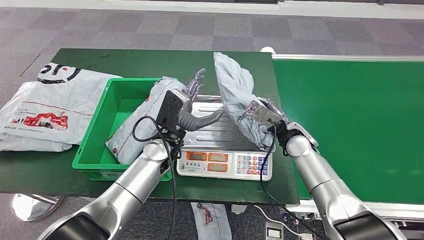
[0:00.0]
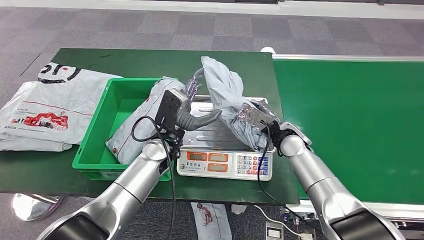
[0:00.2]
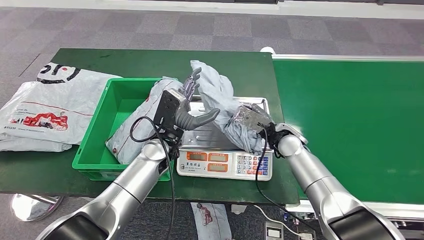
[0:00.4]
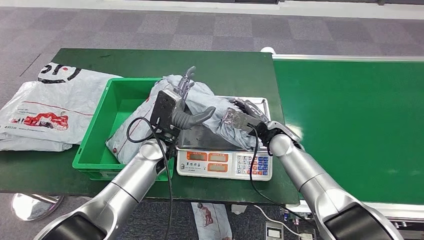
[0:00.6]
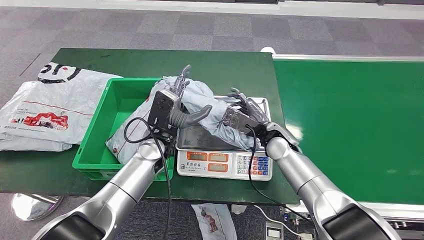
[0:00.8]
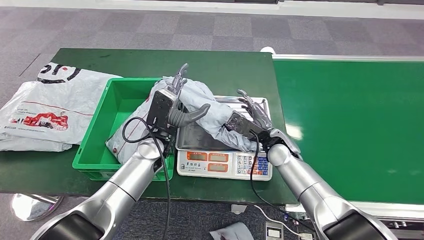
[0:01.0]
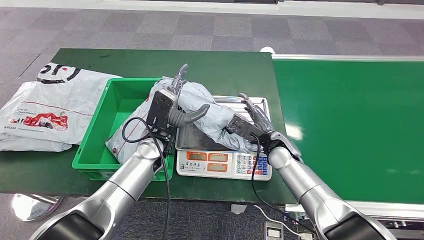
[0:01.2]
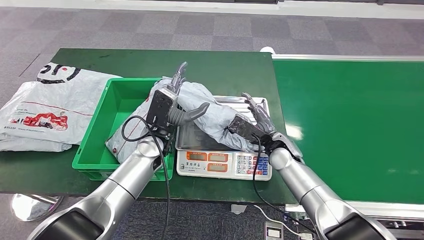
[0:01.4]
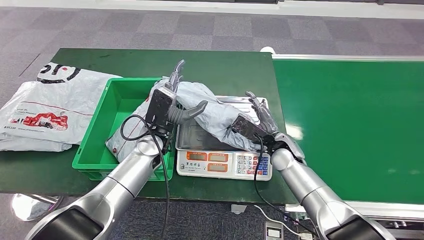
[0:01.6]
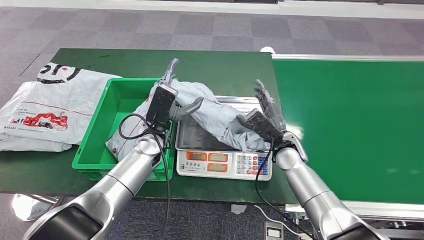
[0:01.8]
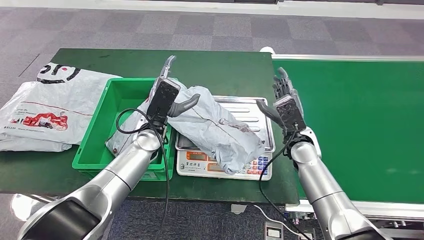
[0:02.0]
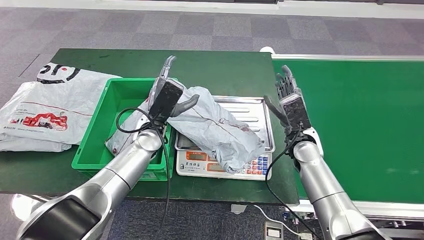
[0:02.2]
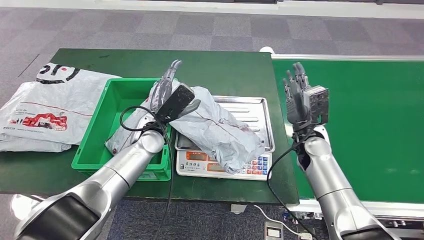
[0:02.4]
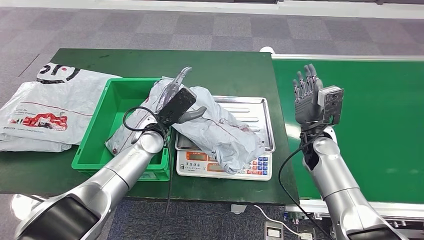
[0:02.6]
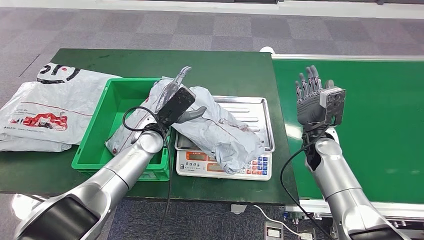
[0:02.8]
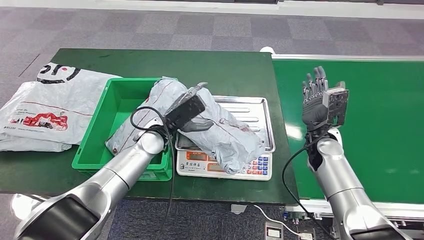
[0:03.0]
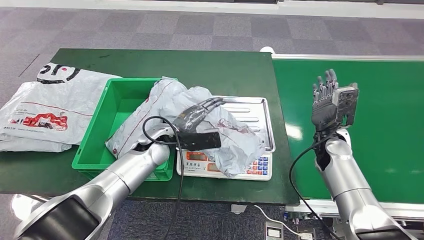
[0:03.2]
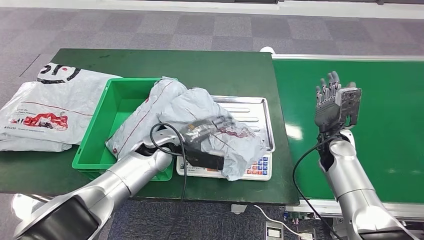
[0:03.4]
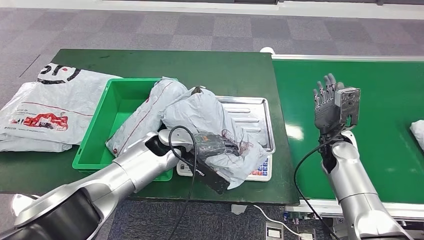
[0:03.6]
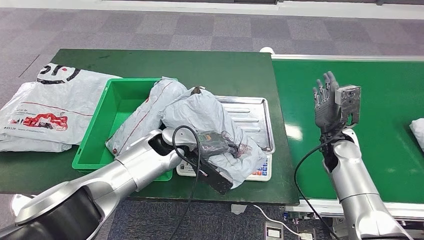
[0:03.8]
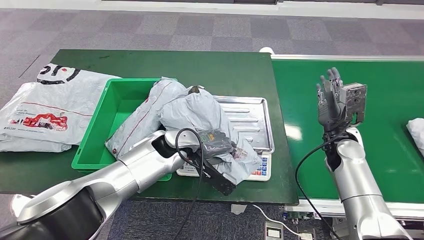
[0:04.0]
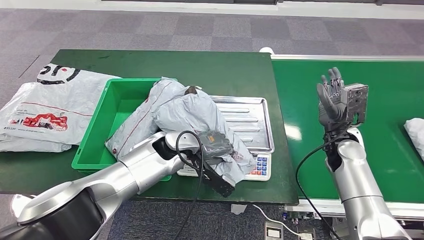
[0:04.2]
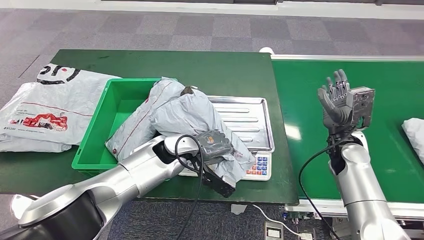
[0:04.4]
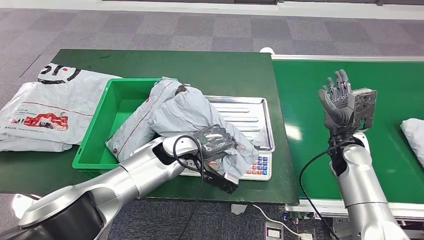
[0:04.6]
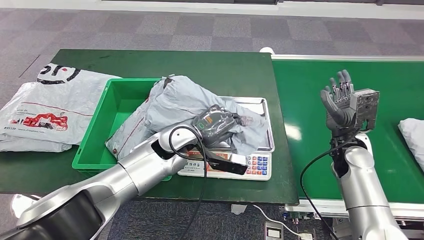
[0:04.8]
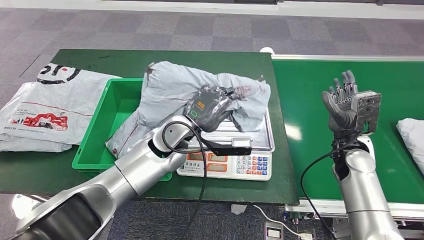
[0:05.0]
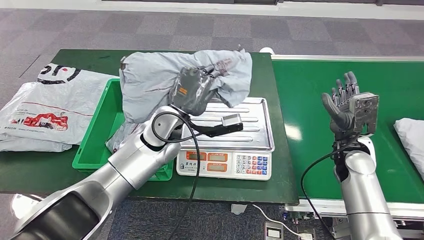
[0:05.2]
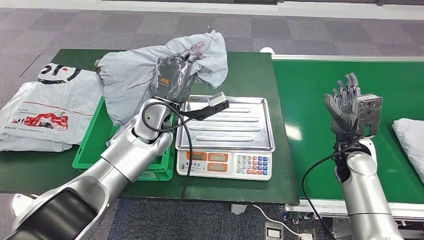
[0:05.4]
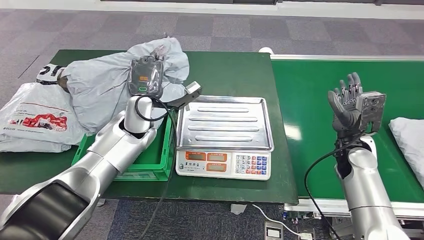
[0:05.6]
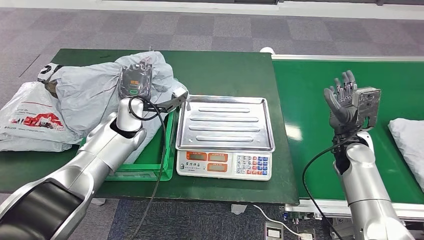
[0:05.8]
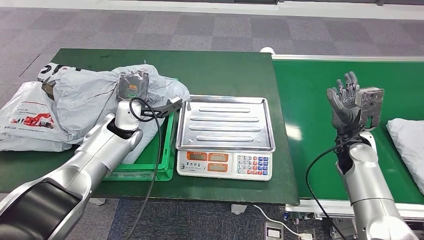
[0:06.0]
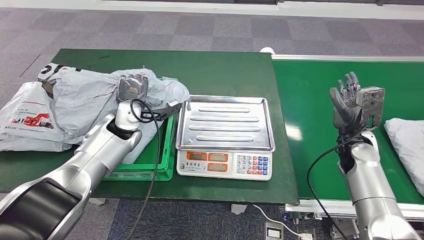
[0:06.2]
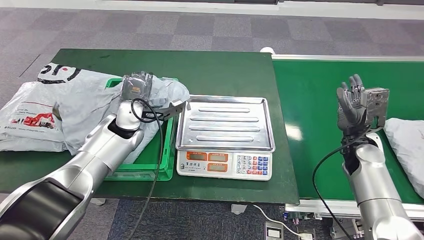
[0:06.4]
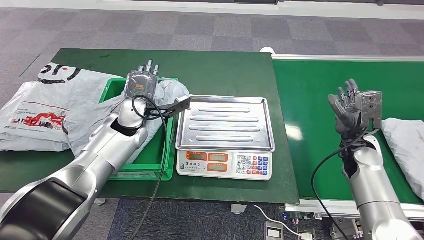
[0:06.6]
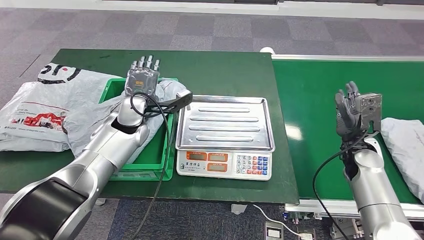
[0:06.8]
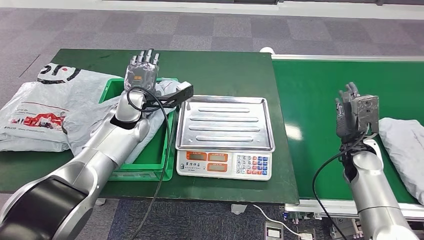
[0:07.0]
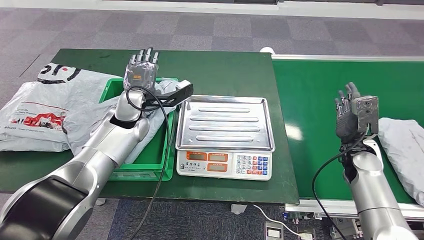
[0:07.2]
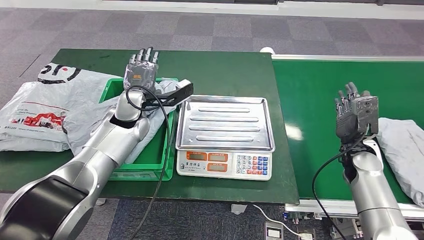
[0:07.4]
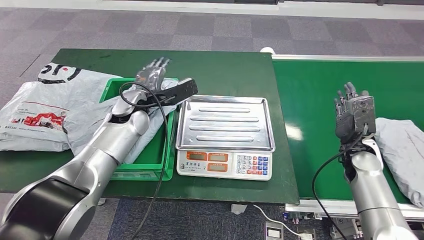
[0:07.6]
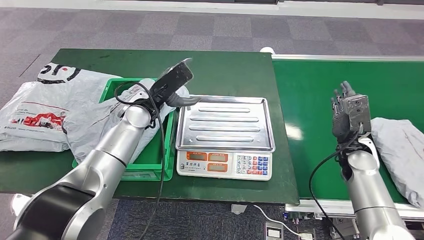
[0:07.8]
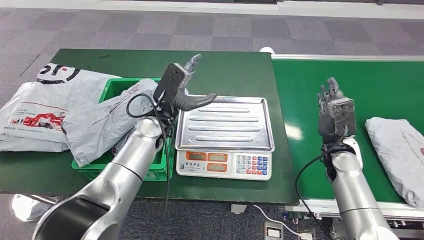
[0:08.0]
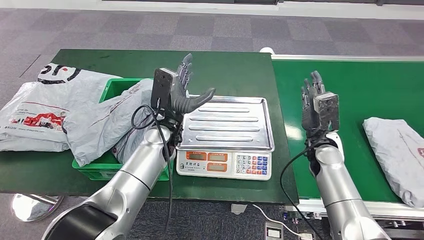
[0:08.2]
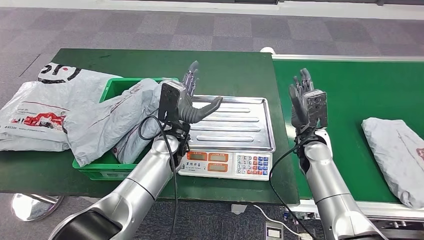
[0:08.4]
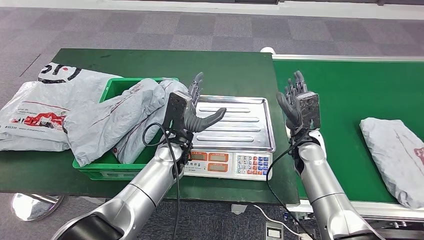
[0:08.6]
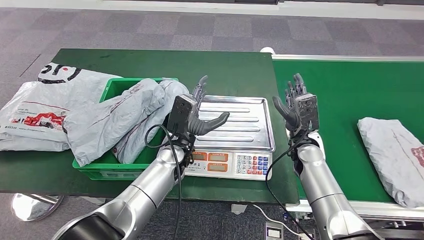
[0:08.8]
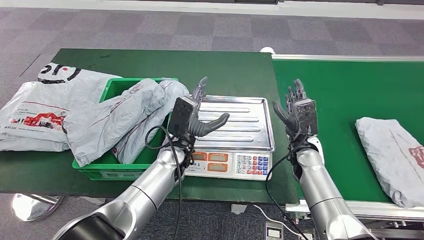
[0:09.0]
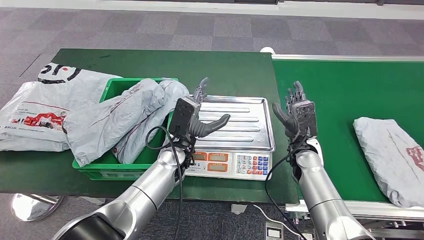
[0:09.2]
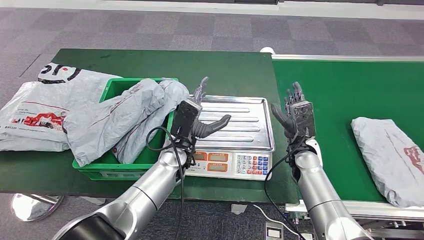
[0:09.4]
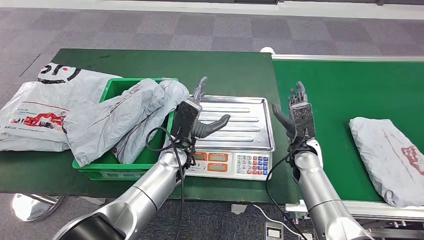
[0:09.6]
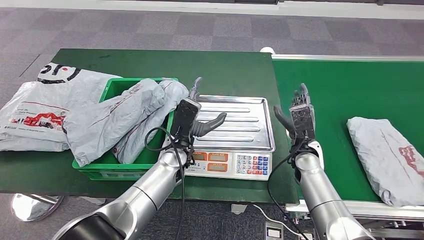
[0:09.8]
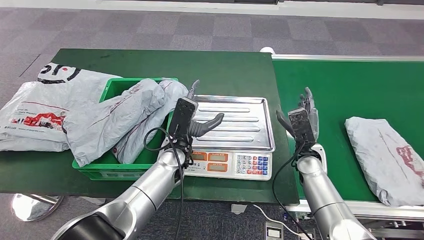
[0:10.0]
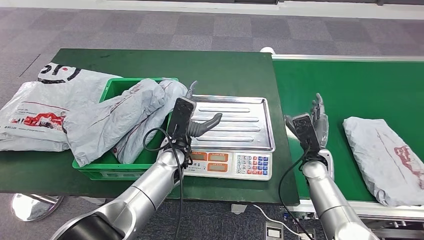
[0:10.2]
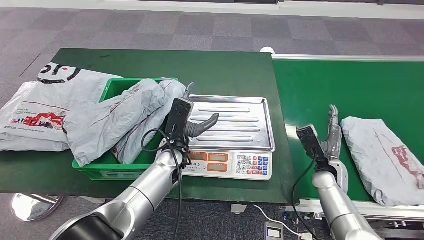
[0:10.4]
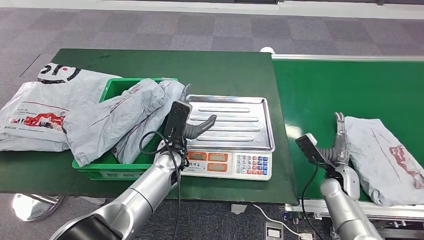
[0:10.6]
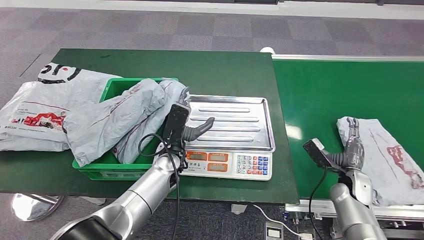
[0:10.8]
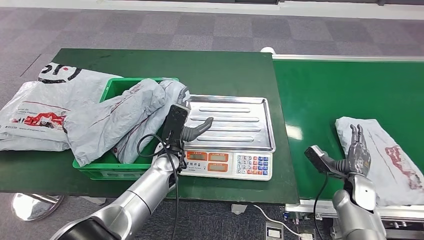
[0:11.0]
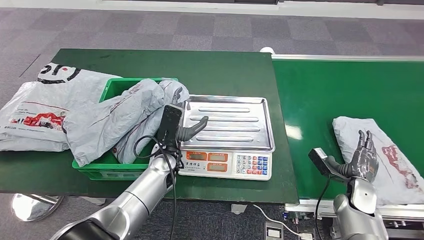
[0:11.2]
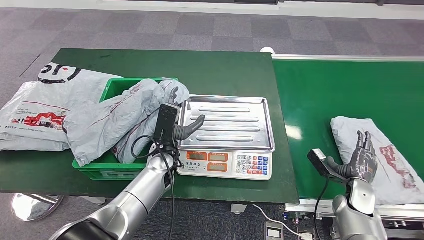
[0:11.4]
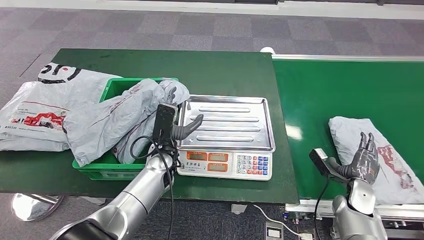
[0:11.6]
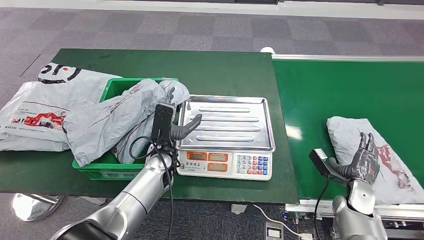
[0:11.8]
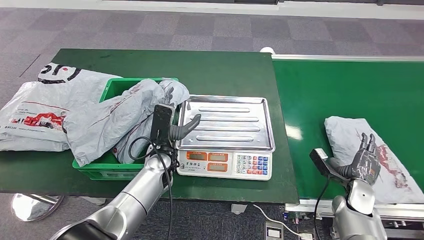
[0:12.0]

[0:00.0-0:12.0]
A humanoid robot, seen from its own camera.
Step, 0:00.0 to 0:01.8: Place the parcel onto the inbound machine.
Step, 0:02.0 to 0:05.0: Pick up the parcel from the inbound machine.
Step, 0:05.2 to 0:07.4: Place the parcel into the delivery box.
0:09.0 to 0:10.4: The right hand moves to the right and downward, about 10 cm.
0:10.4 to 0:12.0: The right hand goes about 10 cm to the right and backward.

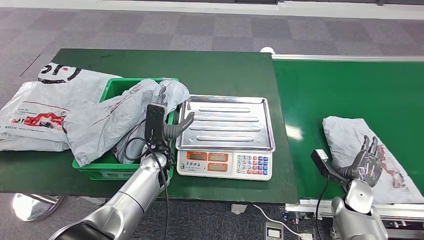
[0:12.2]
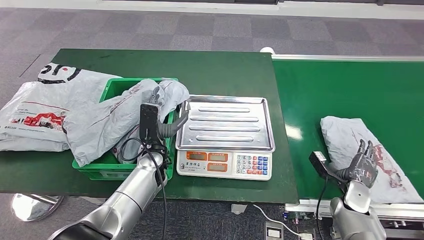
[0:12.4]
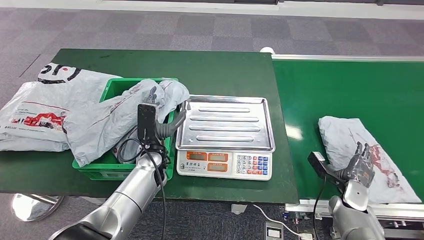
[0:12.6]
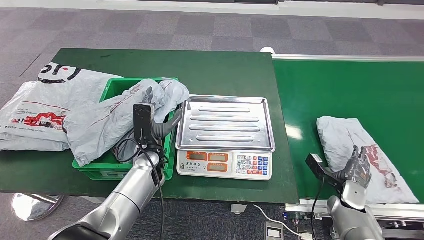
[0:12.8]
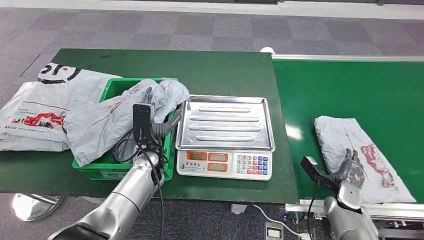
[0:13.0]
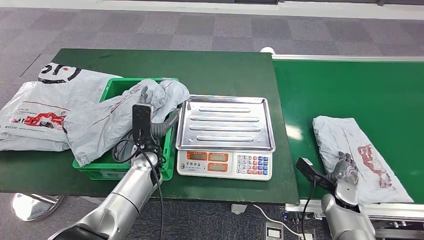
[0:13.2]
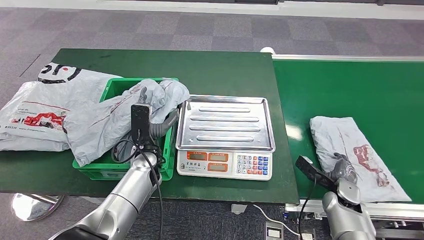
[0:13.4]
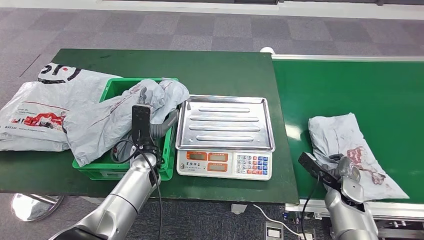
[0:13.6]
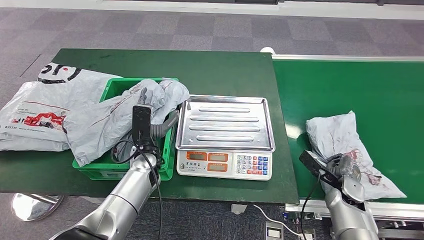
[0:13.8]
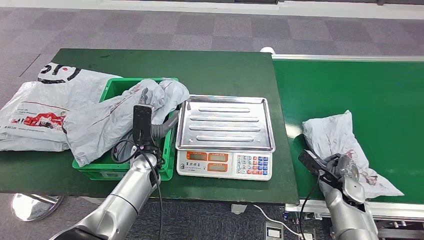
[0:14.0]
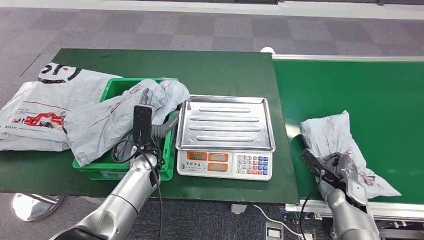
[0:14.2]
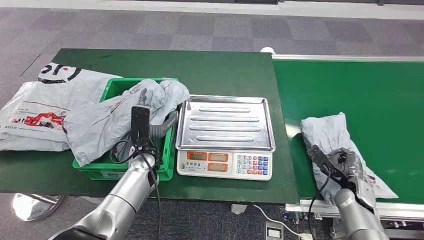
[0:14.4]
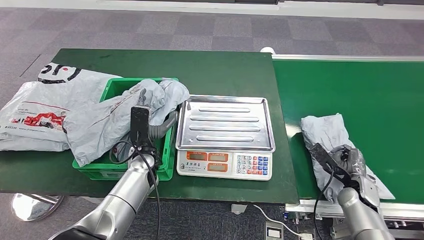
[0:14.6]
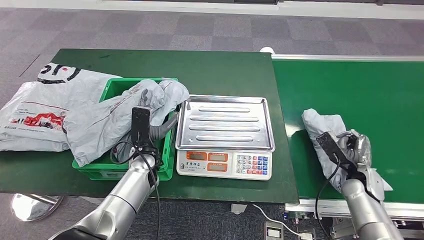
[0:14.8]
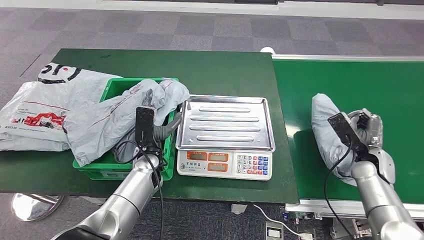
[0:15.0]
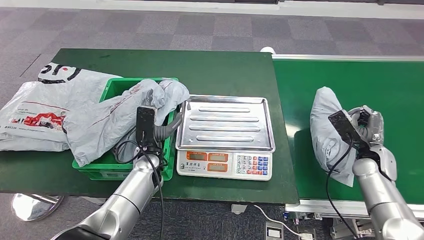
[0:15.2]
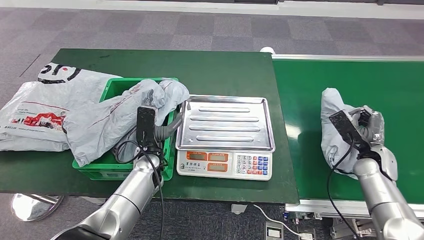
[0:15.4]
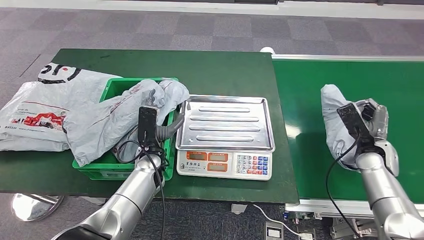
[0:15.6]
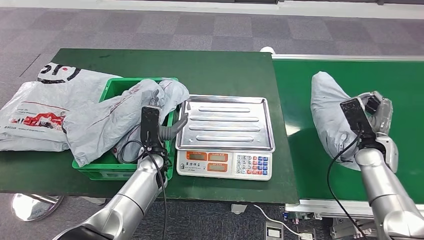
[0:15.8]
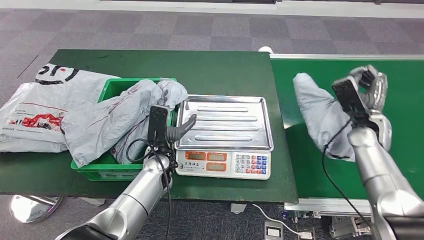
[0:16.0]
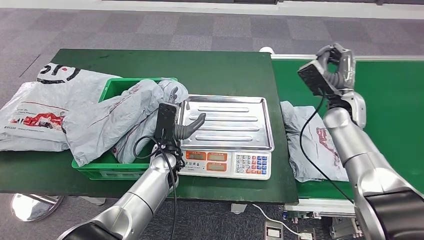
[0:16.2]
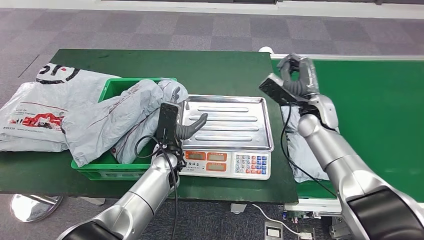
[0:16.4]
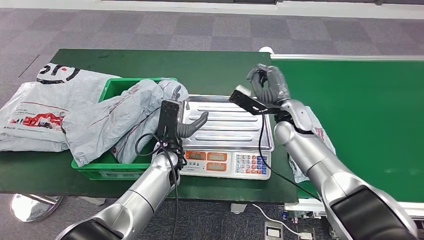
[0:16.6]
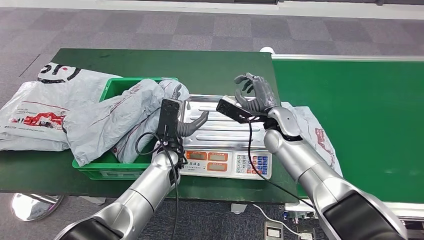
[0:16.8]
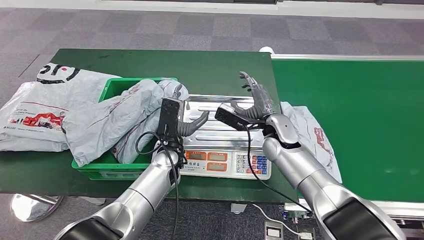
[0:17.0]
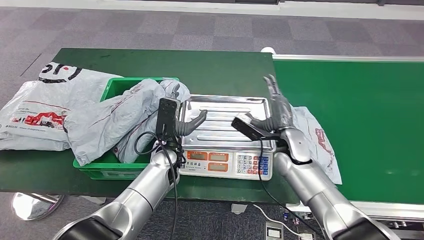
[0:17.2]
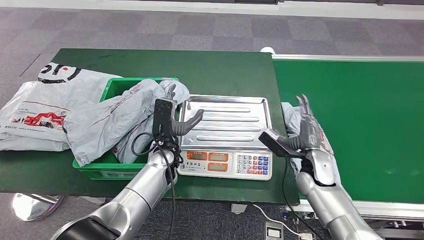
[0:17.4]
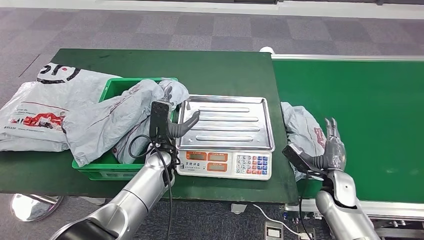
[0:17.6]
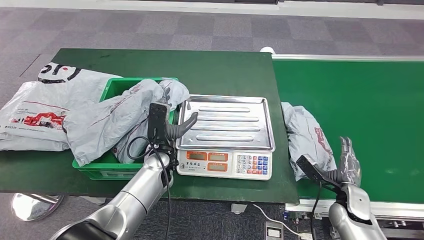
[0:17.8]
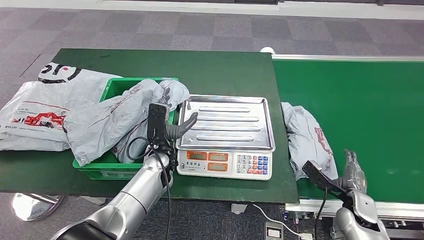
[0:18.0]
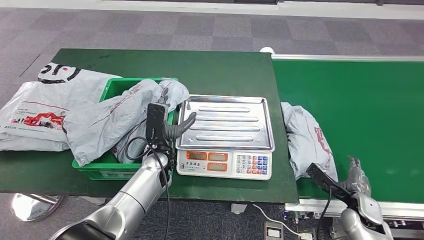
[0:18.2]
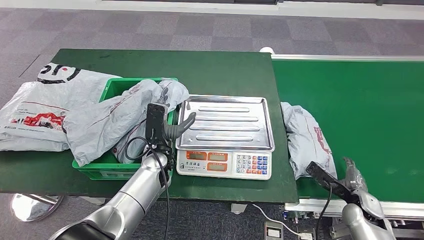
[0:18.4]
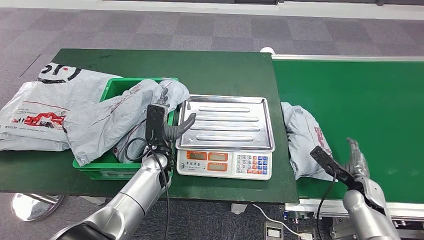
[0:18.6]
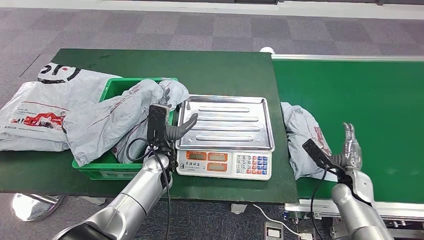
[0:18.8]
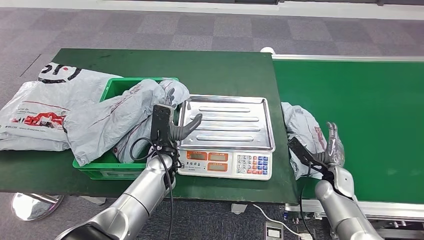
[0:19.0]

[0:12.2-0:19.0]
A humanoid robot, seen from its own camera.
Step, 0:12.8 to 0:14.6: Pick up the parcel from the conveyor belt.
0:13.6 to 0:15.0: The right hand is displaced upward and to the right by about 10 cm.
0:16.2 to 0:17.6: The right hand is displaced downward and backward by some 20 cm, and moves roughly 15 cm to the left and comes back.
0:17.6 to 0:19.0: The right hand moves some 10 cm to the right and comes back.
